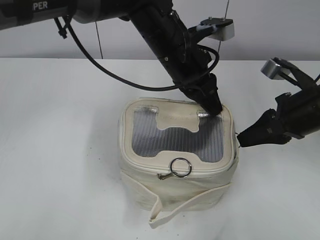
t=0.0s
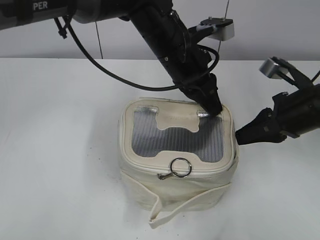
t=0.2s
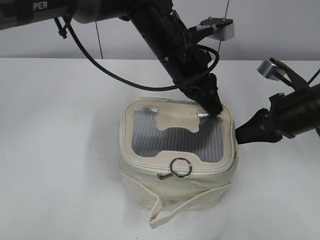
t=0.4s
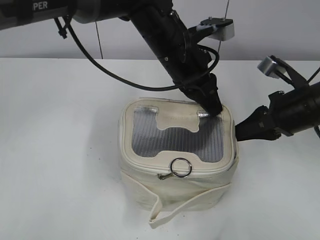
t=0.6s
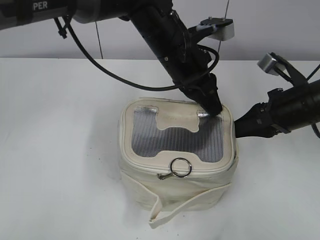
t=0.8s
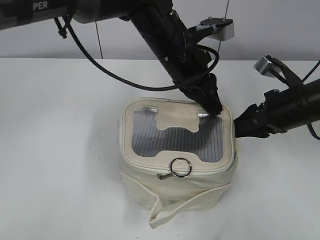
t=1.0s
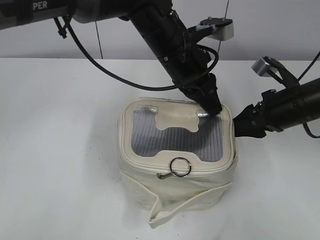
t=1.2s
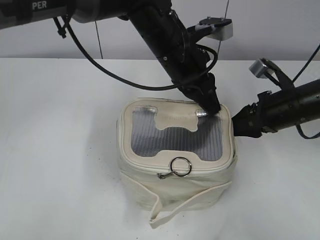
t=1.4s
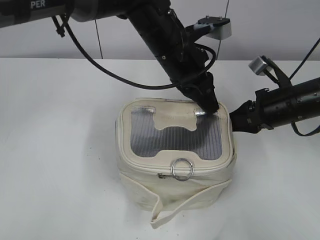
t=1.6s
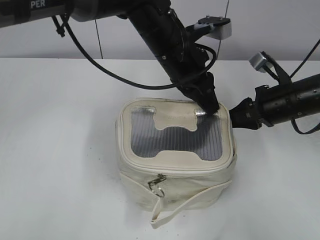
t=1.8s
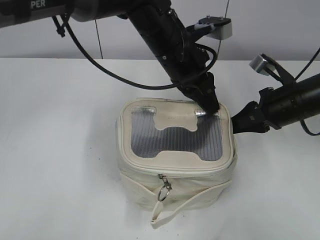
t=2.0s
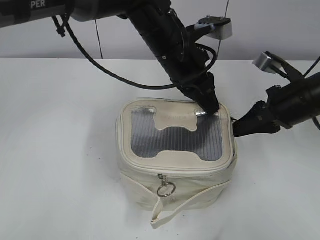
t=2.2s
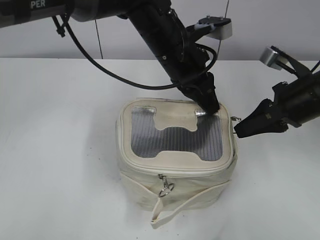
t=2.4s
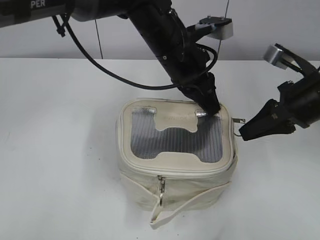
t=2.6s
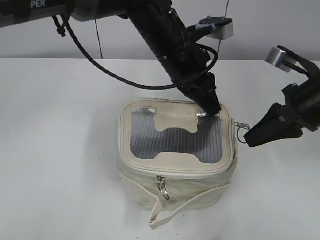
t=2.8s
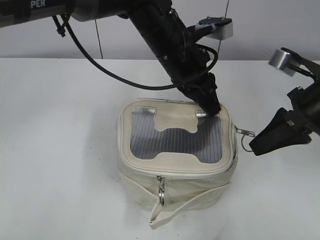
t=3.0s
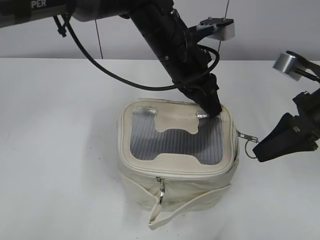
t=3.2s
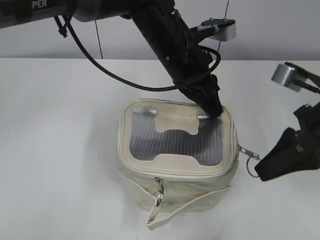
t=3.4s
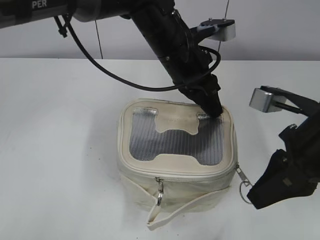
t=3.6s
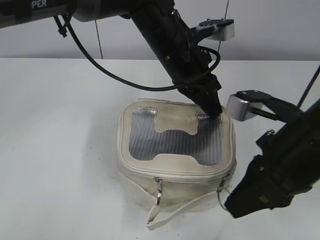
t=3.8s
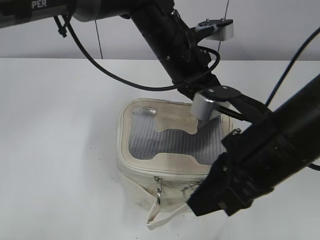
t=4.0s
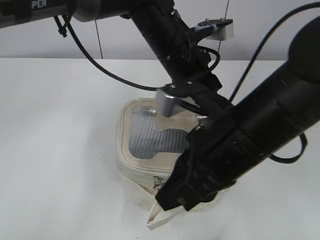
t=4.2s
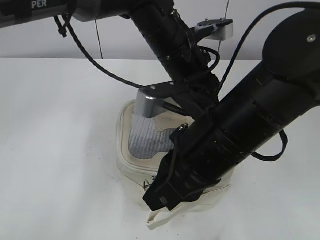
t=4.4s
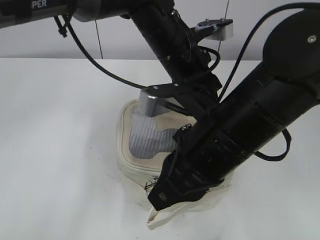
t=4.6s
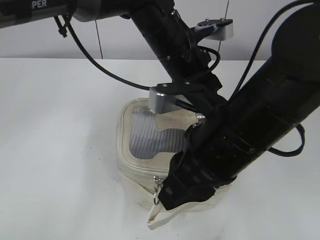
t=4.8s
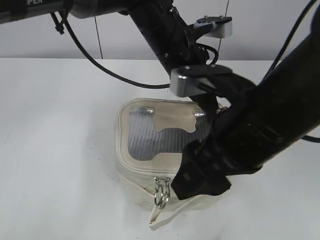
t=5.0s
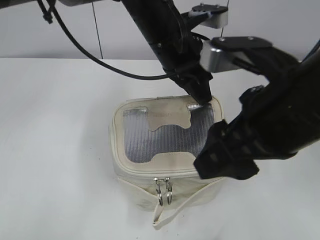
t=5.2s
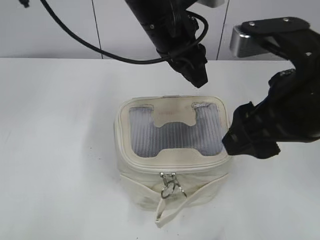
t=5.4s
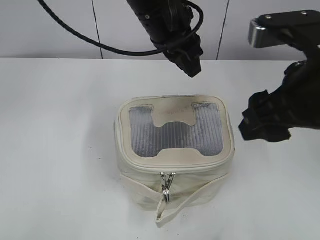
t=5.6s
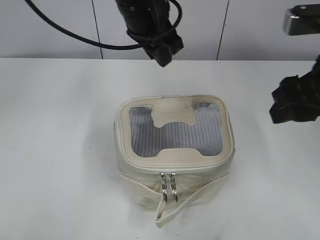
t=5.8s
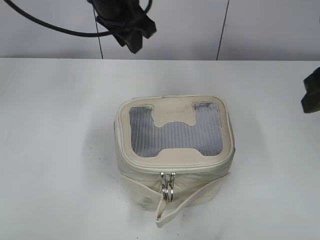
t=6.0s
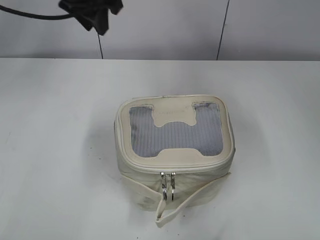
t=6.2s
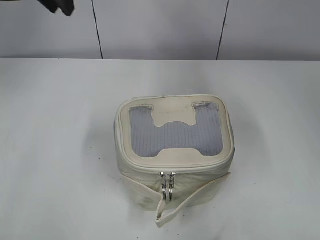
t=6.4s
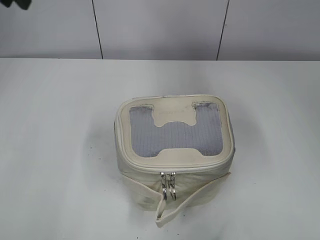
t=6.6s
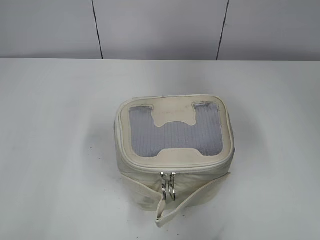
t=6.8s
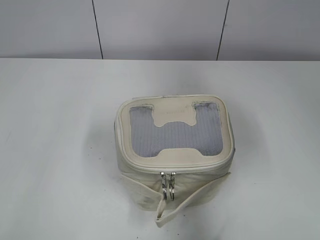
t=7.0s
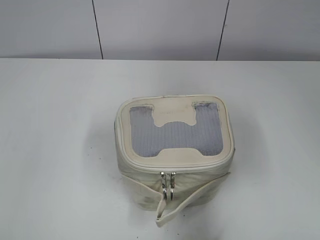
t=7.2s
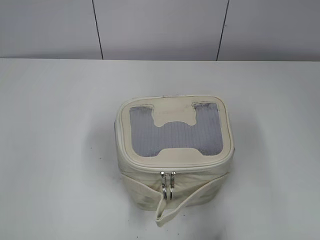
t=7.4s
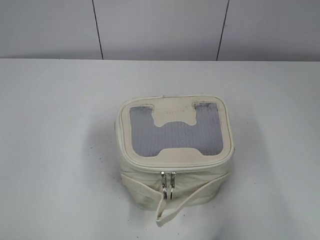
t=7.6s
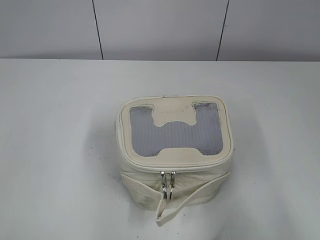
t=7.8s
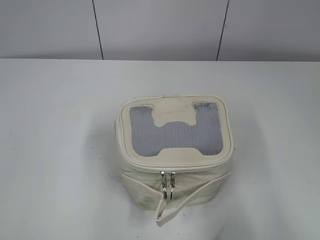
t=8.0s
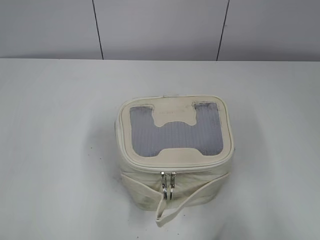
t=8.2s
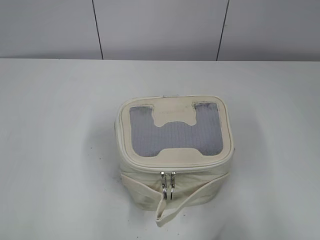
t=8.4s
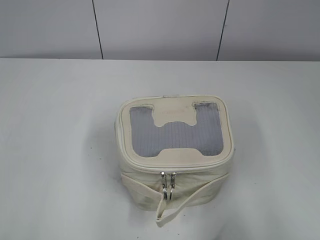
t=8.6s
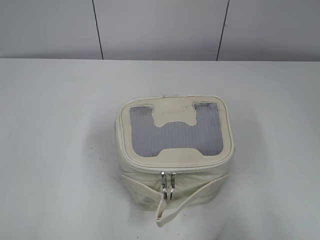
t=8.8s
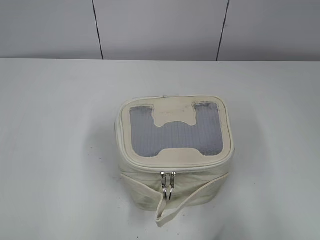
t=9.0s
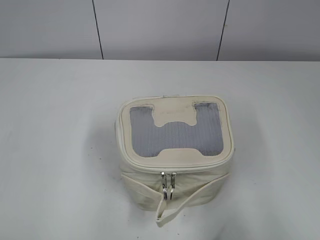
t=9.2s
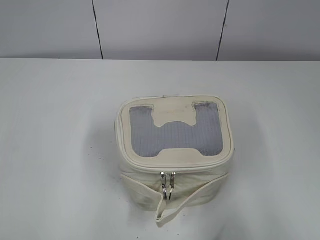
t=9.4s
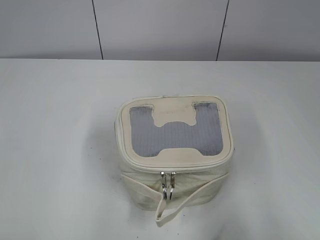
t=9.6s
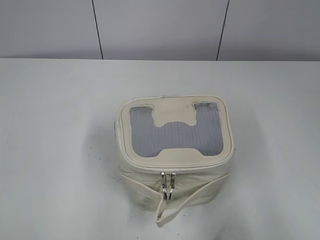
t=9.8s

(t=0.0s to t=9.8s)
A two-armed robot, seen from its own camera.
Step, t=0.0s - t=4.8s: Zip up the bag with your right hand.
Step, t=5.0s - t=5.2s: Hold the bag with your left hand.
t=0.0s - t=1.4s: The right gripper opens its fingers.
t=1.4s - t=2.8s: The right gripper heads upward, covering roughly 5 cm, and closes its fingers.
t=2.8s - t=4.2s: The right gripper goes some 15 cm to the left and backward.
t=4.2s - t=5.6s: The right gripper goes about 10 cm to the right and upward, and opens its fingers. The left gripper moves upward, roughly 5 cm, and opens up.
t=5.6s - t=7.0s: The left gripper is displaced to the left by some 25 cm; the right gripper is displaced to the right by approximately 15 cm.
t=7.0s - t=8.4s: The right gripper shifts about 20 cm backward; the left gripper moves backward and downward, roughly 25 cm.

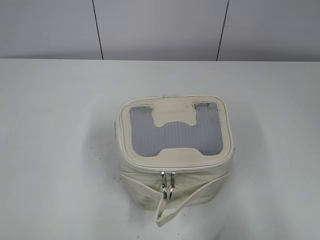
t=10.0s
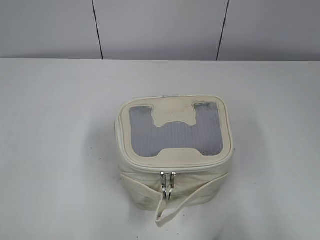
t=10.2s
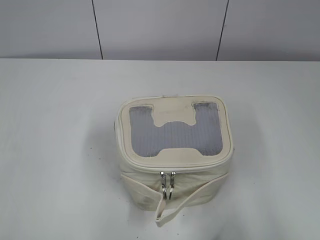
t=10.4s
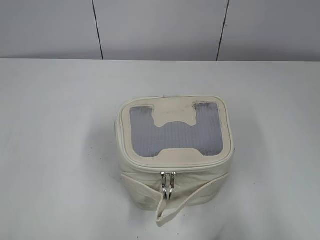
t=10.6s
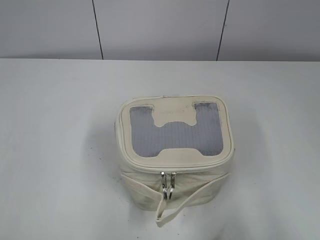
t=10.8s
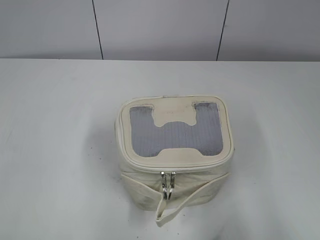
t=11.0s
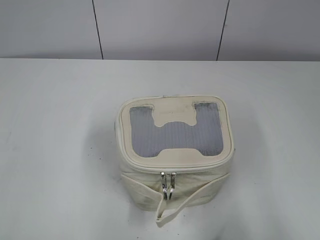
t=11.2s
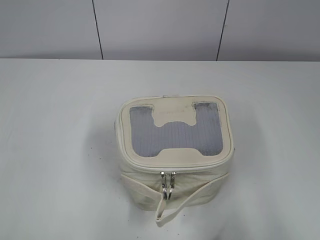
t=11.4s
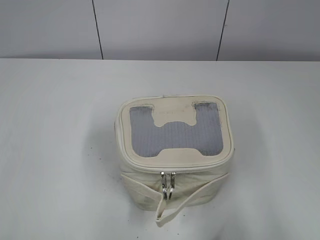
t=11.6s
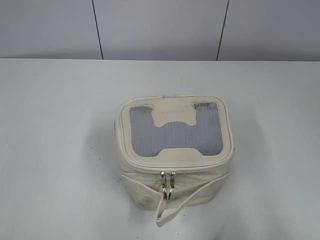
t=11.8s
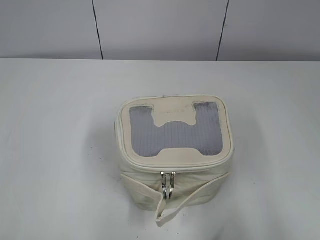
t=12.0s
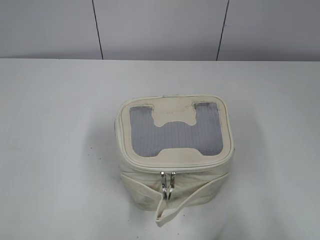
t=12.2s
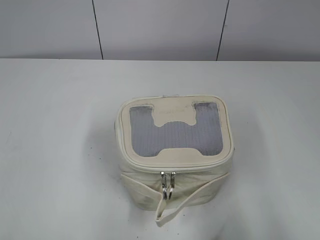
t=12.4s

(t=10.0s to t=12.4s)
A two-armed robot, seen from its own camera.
t=11.2s - t=12.4s: Neither gripper changes place.

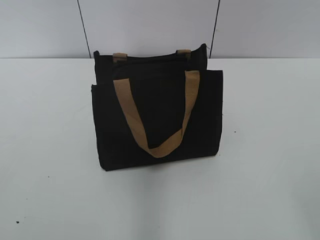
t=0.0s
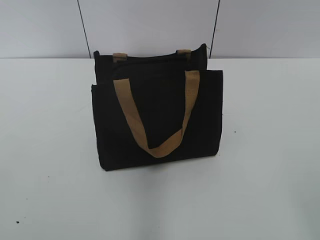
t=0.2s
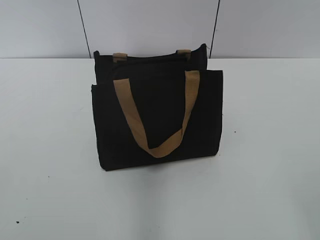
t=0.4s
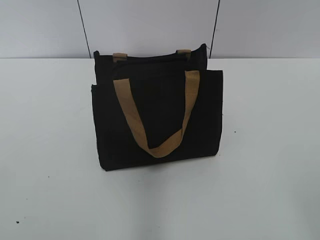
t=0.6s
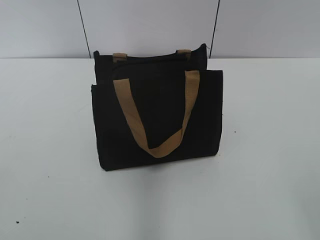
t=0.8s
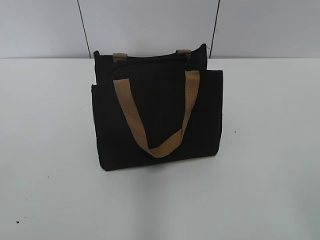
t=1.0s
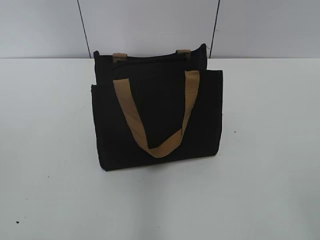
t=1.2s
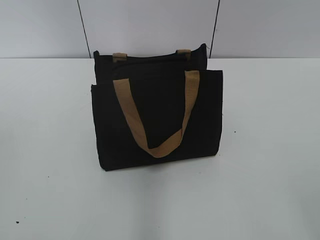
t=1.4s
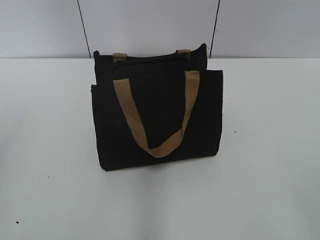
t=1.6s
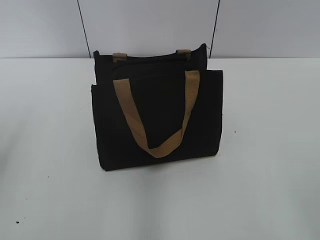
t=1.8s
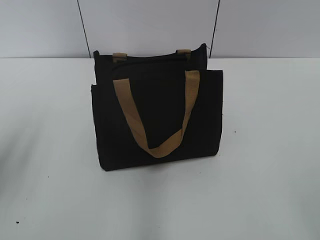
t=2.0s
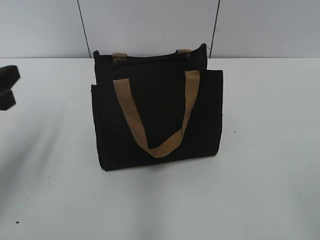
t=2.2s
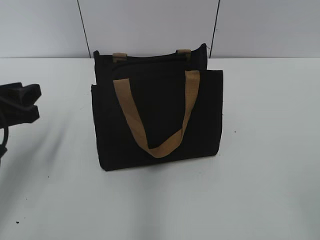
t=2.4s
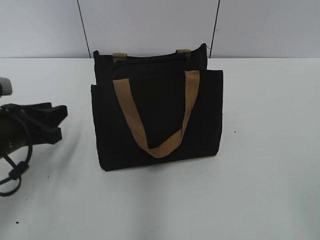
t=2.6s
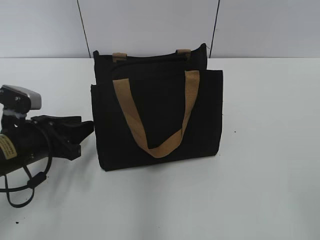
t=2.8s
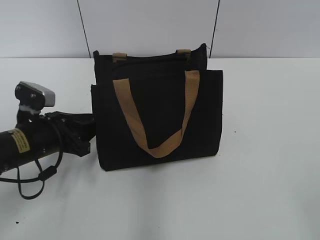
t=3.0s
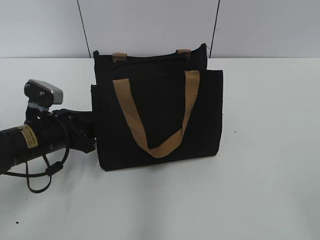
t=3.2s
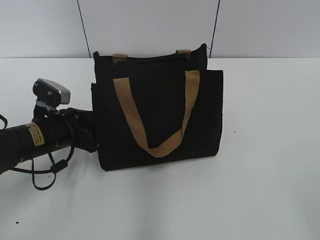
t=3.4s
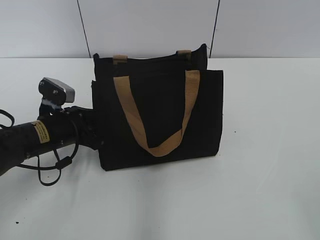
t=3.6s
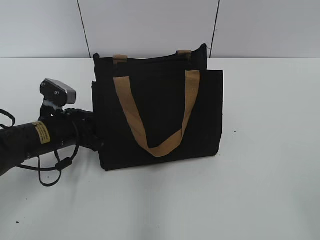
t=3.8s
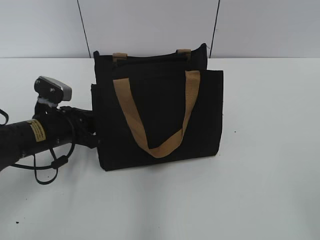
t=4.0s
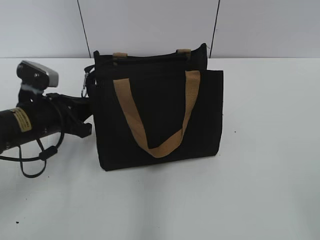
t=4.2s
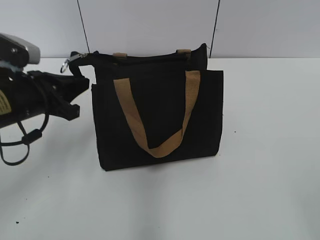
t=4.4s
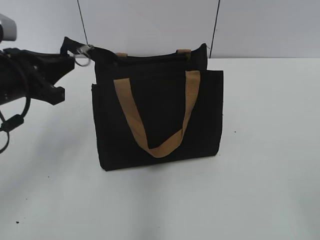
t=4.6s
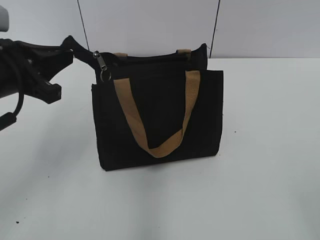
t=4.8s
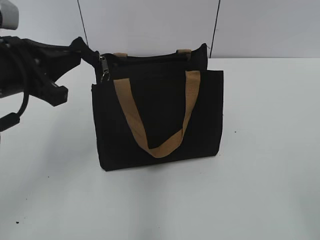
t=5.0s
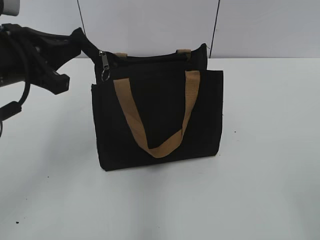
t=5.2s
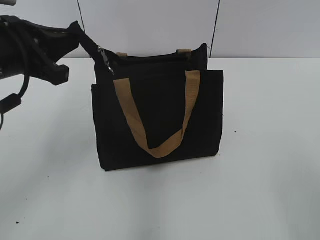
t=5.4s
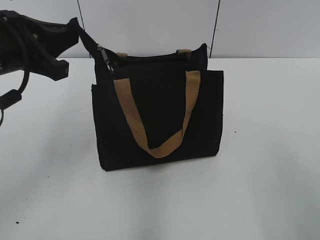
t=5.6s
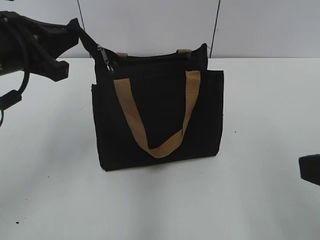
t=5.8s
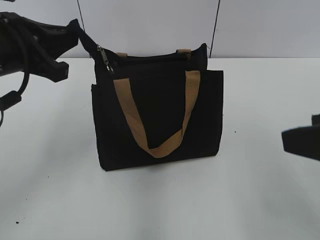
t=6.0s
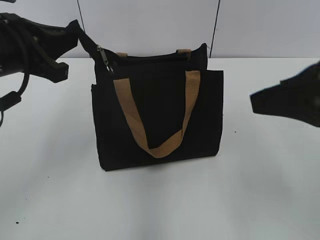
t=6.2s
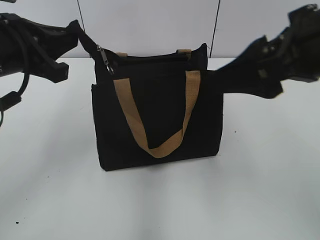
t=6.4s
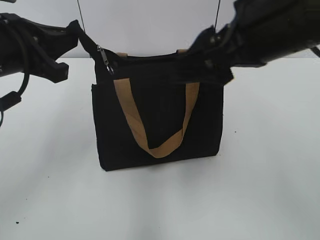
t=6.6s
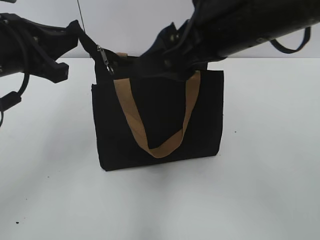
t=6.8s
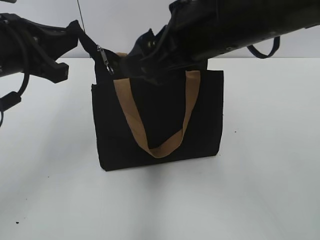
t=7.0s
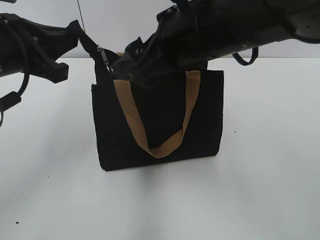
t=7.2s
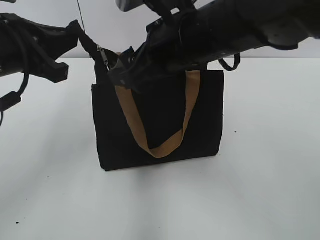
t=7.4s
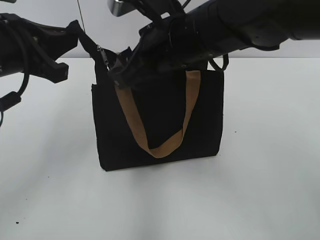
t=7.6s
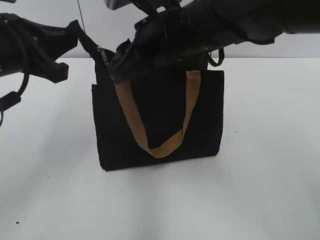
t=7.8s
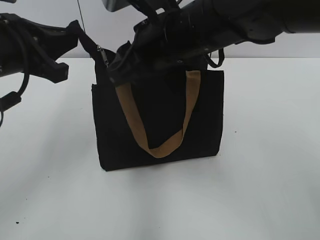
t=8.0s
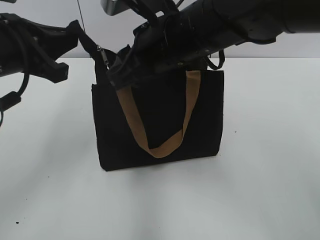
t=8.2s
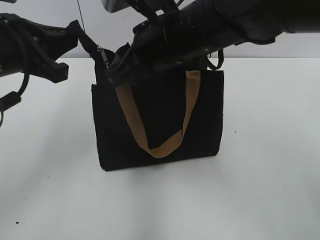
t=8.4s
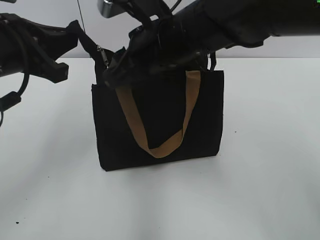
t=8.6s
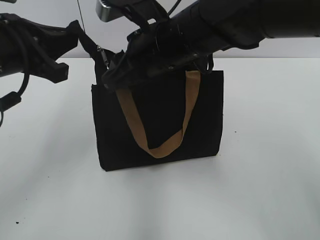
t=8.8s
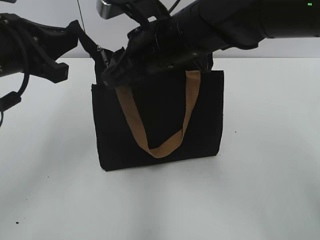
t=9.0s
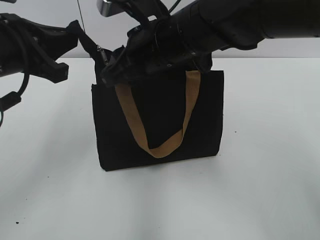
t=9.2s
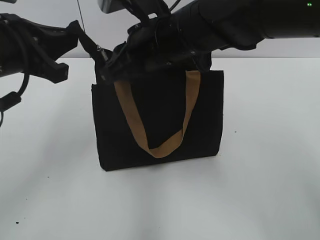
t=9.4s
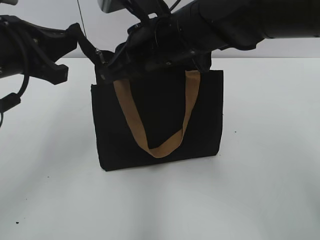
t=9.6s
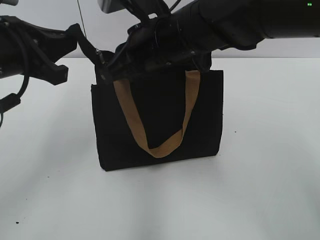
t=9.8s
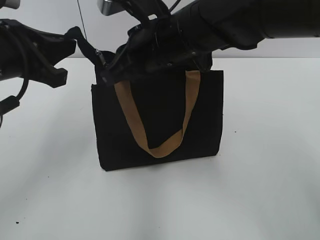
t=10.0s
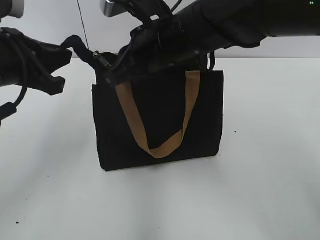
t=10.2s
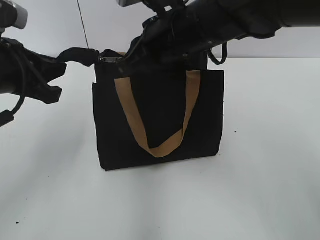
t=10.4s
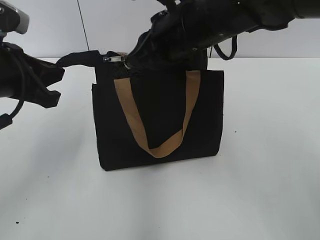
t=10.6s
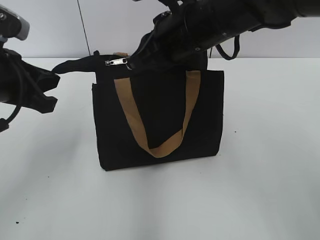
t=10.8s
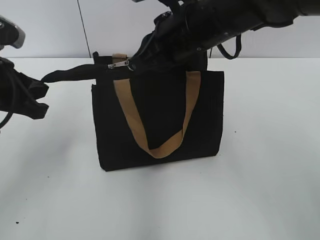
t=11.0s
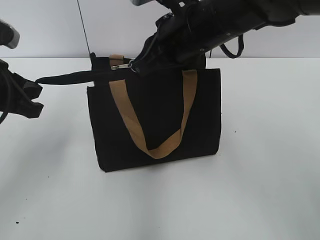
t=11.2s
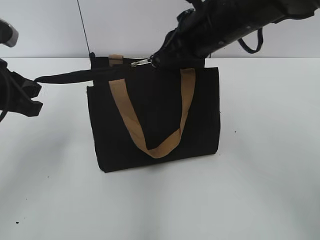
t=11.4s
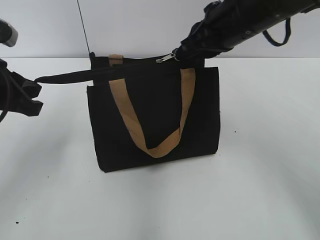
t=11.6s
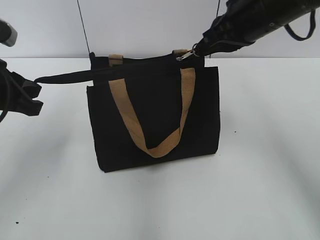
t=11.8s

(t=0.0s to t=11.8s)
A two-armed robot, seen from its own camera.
t=1.4s - t=3.0s: The left gripper shifts some 35 cm downward, forward and to the right.
t=3.0s - t=4.4s: The left gripper is displaced upward by approximately 5 cm, and closes.
t=4.4s - t=6.0s: The left gripper moves upward, roughly 10 cm; the right gripper heads forward and to the left, covering roughly 15 cm.
t=6.0s - t=7.4s: The right gripper moves to the left and forward, some 25 cm.
t=7.4s - t=8.8s: The right gripper closes up.
t=8.8s - t=10.4s: The right gripper closes up.
t=10.4s - t=11.8s: The right gripper shifts some 10 cm to the right.
